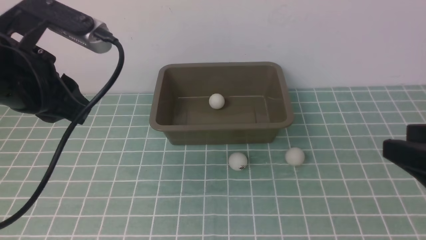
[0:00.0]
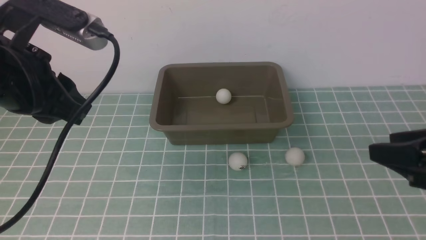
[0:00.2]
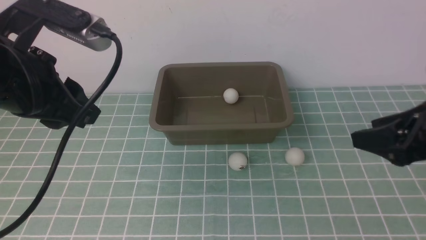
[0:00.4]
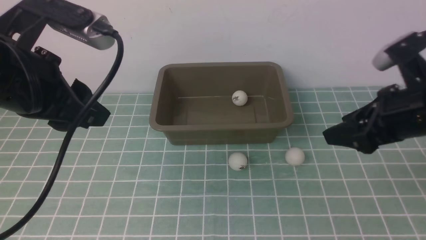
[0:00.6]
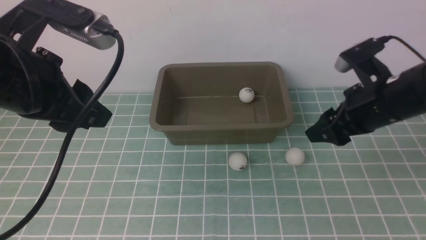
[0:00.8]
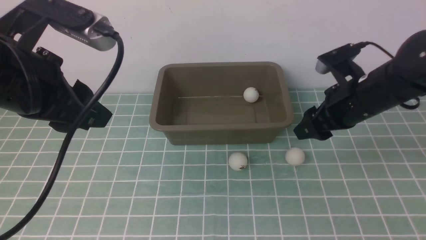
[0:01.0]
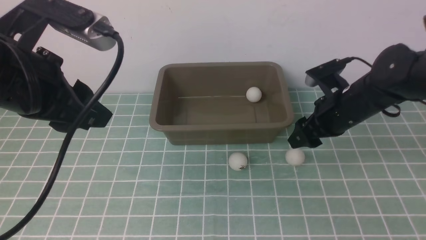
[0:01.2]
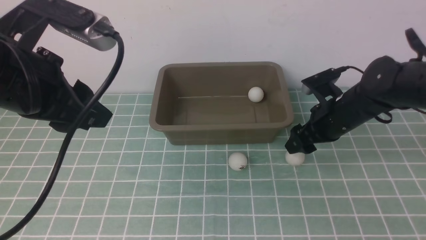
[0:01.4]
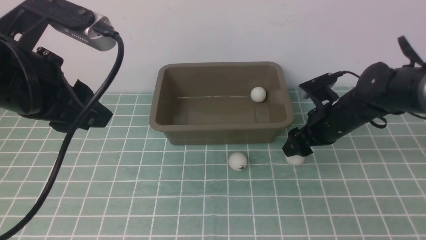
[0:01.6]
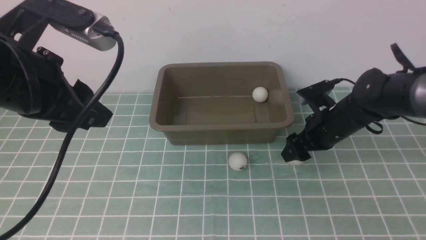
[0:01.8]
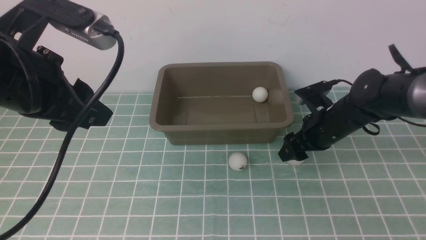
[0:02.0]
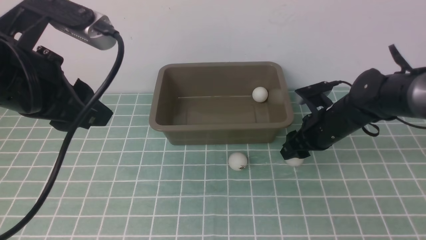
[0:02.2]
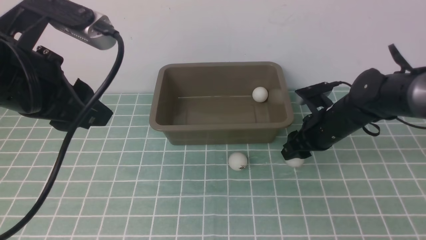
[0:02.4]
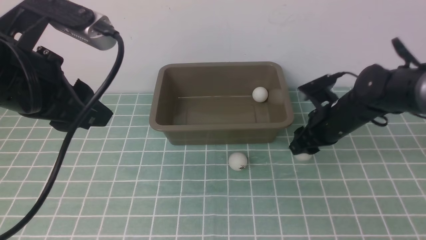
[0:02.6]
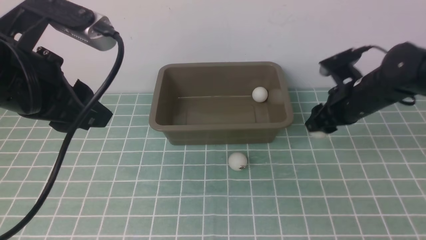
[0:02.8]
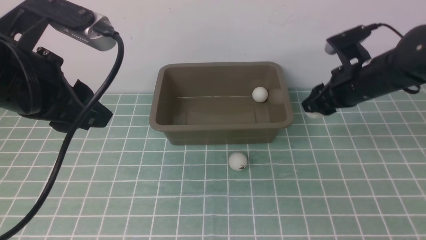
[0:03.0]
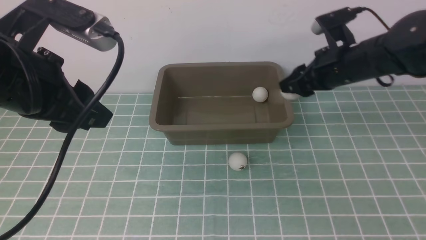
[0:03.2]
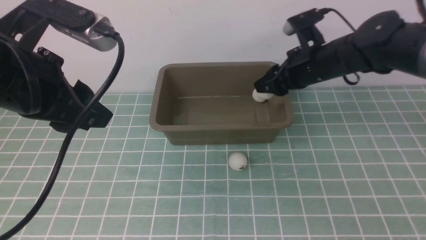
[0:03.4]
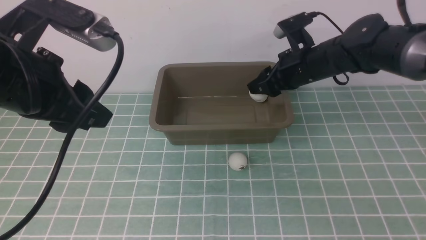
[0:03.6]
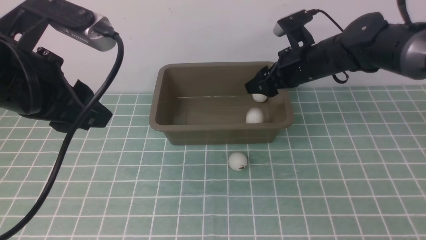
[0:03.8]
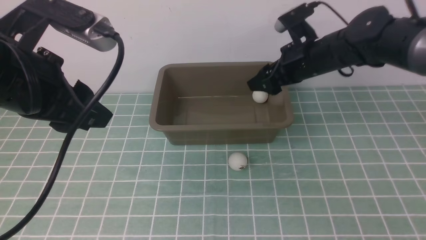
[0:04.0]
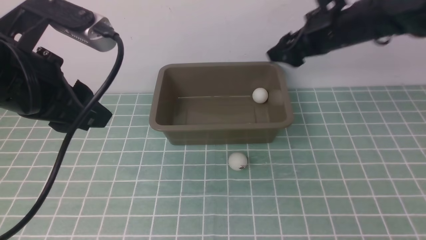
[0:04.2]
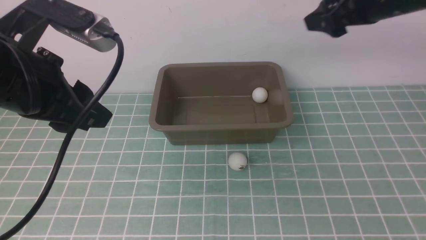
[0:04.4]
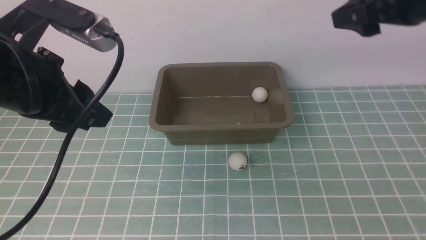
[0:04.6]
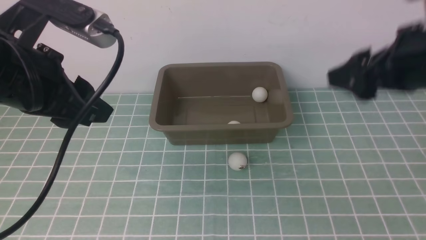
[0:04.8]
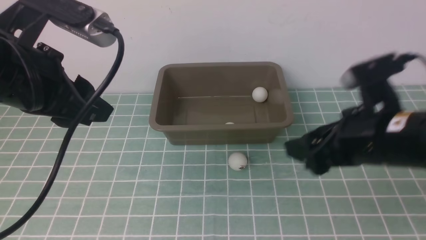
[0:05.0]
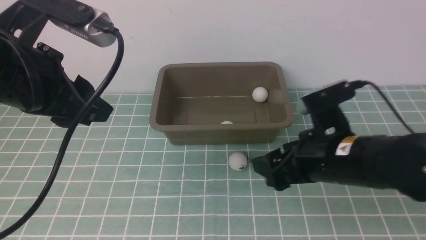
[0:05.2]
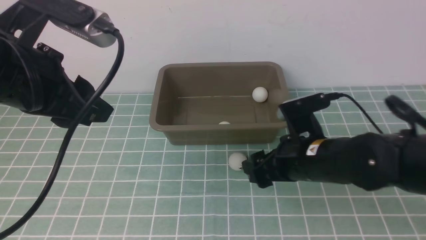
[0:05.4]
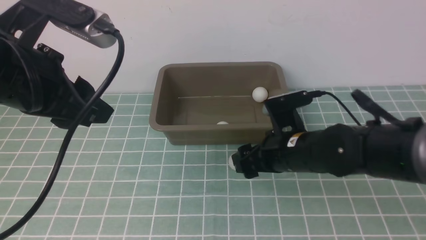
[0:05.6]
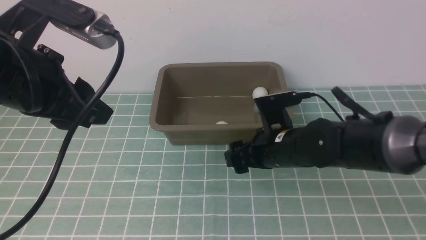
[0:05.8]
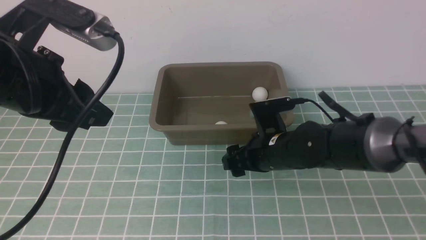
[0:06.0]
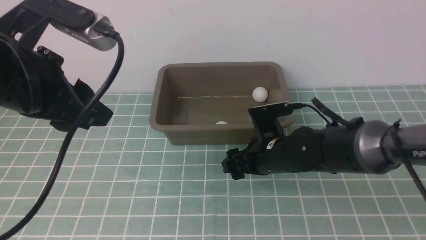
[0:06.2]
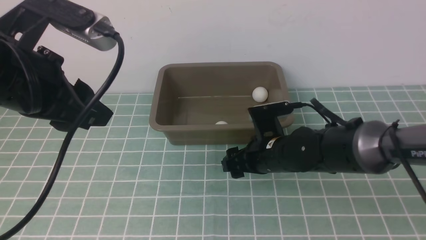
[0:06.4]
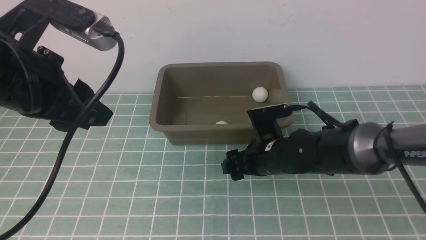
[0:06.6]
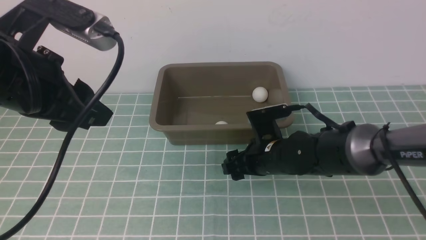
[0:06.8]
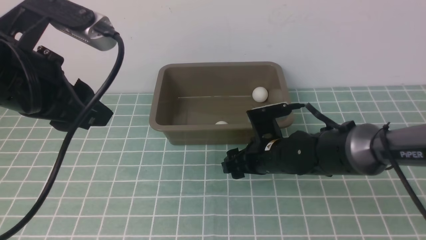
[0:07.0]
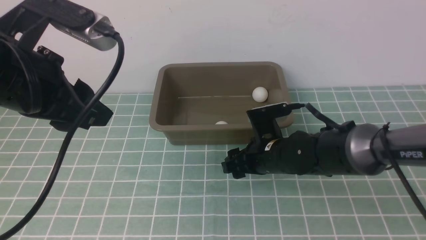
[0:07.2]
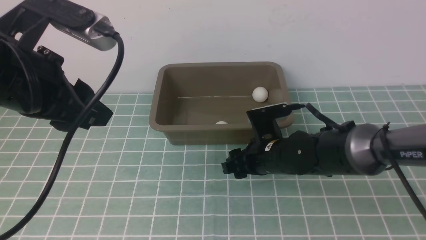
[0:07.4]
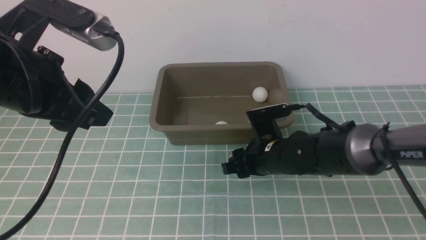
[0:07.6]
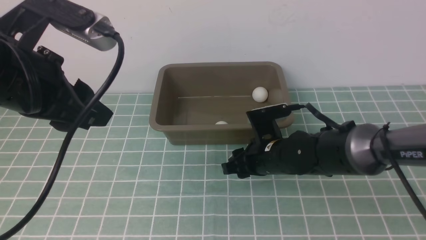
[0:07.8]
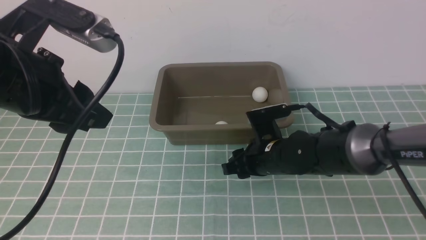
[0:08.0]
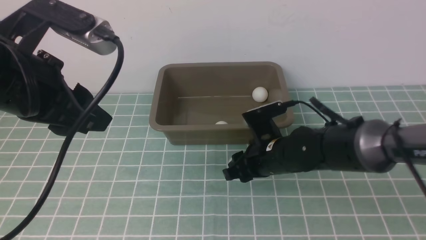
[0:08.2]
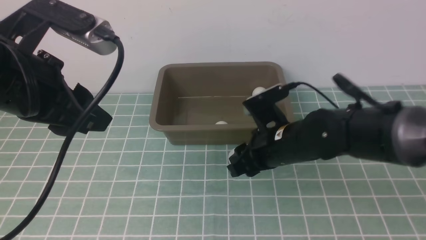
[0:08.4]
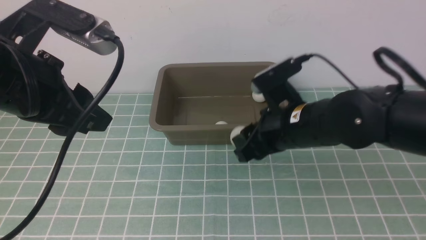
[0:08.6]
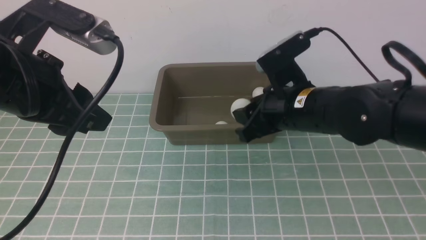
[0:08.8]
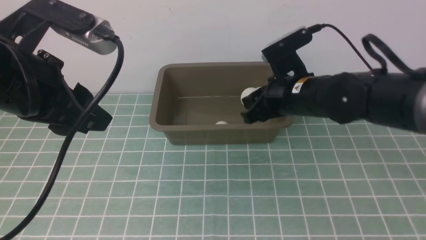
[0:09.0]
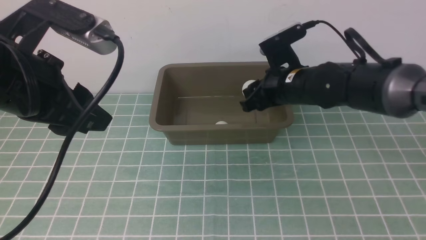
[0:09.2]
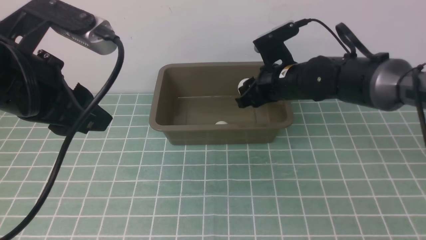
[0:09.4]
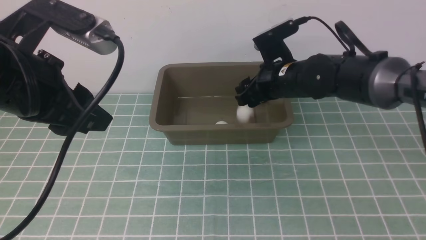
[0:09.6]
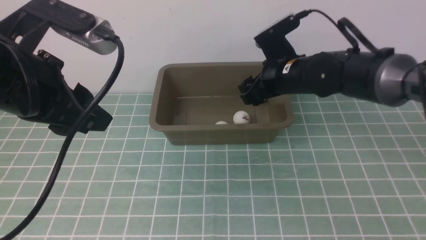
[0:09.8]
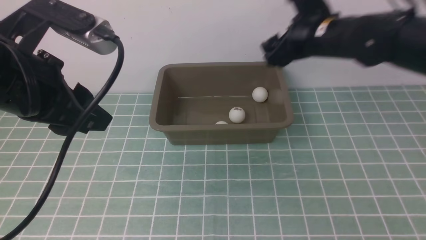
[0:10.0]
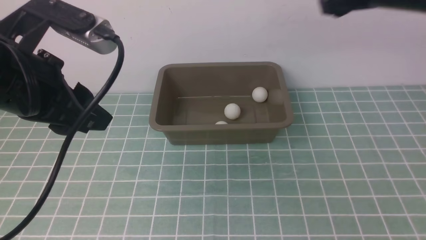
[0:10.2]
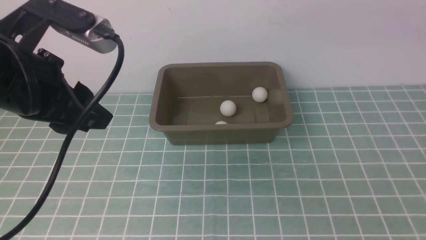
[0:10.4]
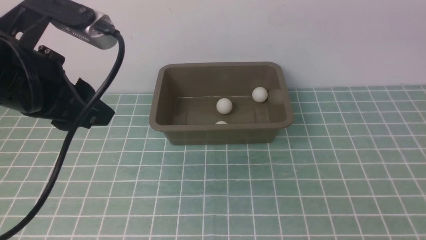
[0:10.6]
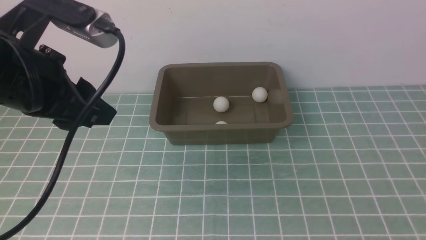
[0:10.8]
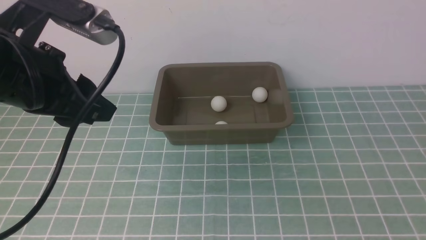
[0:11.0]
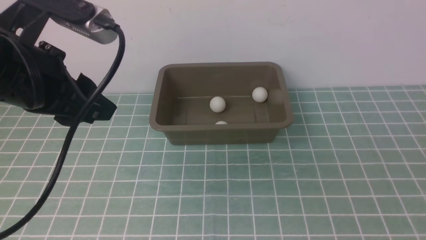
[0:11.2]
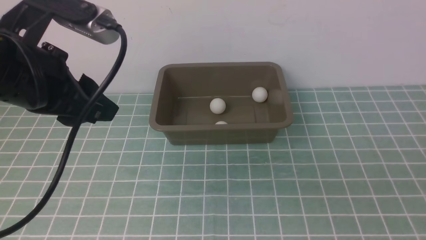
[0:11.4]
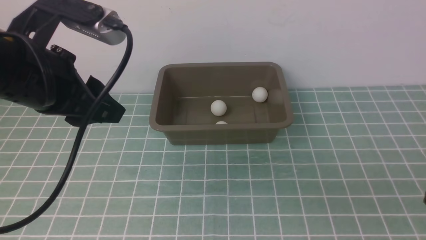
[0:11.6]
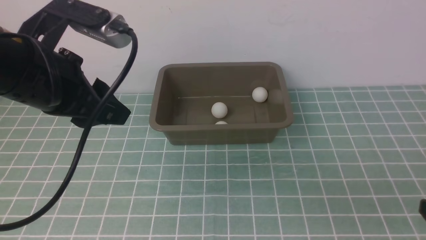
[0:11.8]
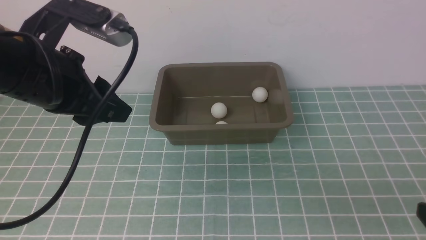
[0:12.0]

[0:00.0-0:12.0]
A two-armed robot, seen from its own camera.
Step, 0:00.0 to 0:02.8: use the right arm to clamp the table tennis ball closest to it.
Step, 0:03.0 to 0:04.0: use the right arm to put the table tennis ball into the box.
Step, 0:04.2 to 0:08.2: use the right arm to clamp the table tennis ball closest to it.
Step, 0:08.4 to 0:09.8: use the right arm to put the table tennis ball into the box.
0:00.0 to 0:01.6: The left gripper opens; the right gripper travels forward and downward by approximately 25 cm, and opens.
0:01.6 to 0:03.0: The right gripper heads upward, covering about 10 cm, and closes its fingers.
0:03.0 to 0:04.4: The right gripper goes some 15 cm upward, and opens.
0:04.4 to 0:06.0: The right gripper is displaced downward and to the left by some 25 cm.
0:06.0 to 0:07.6: The right gripper closes up.
0:07.6 to 0:09.0: The right gripper shifts about 10 cm upward.
0:09.0 to 0:10.4: The right gripper goes about 25 cm upward and to the right, and opens up.

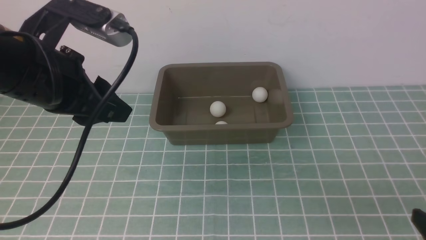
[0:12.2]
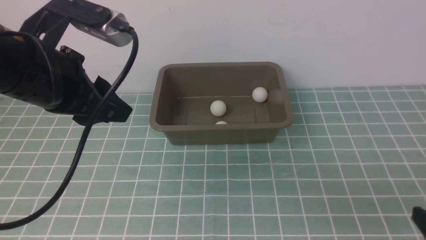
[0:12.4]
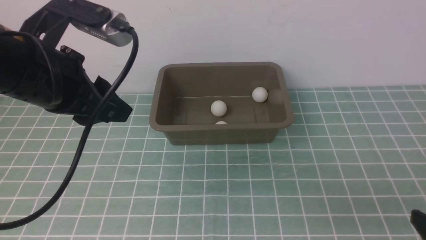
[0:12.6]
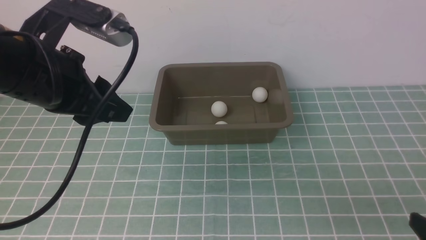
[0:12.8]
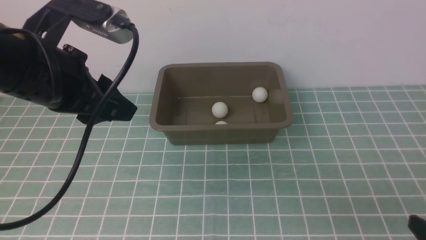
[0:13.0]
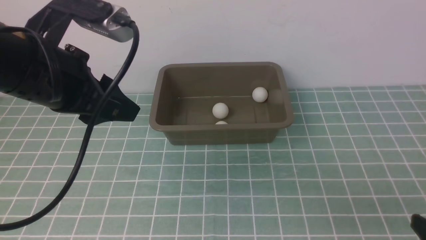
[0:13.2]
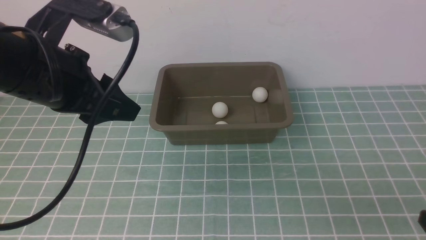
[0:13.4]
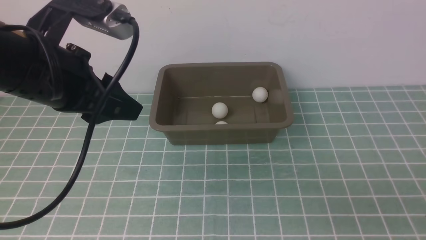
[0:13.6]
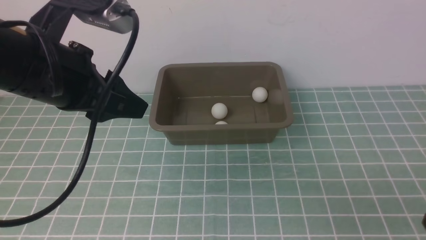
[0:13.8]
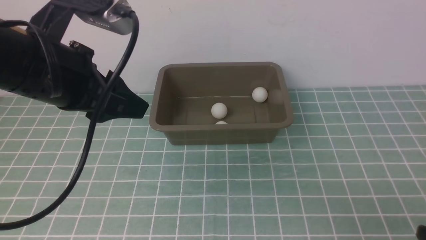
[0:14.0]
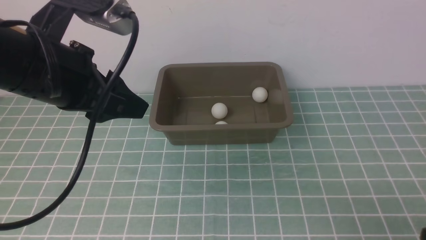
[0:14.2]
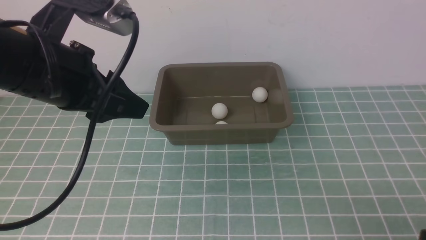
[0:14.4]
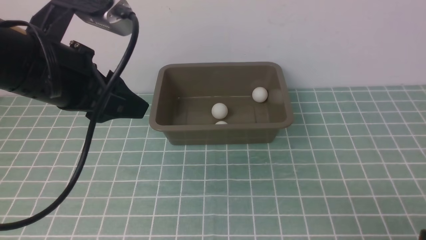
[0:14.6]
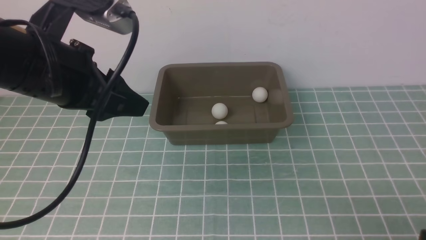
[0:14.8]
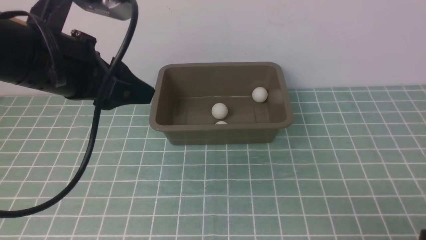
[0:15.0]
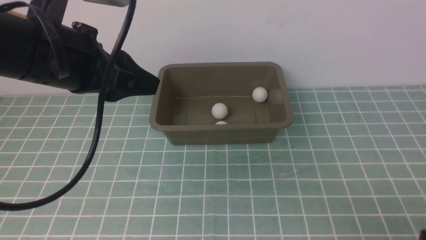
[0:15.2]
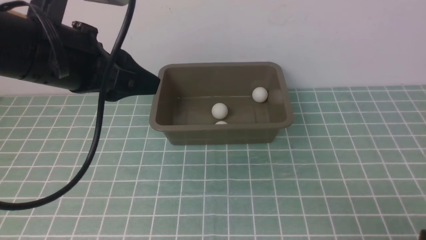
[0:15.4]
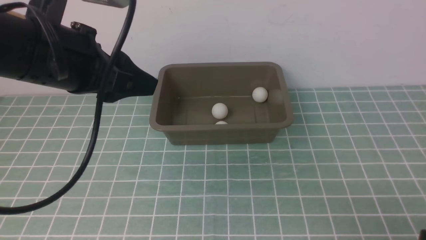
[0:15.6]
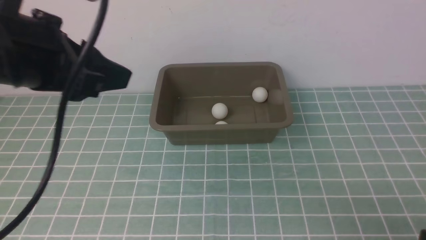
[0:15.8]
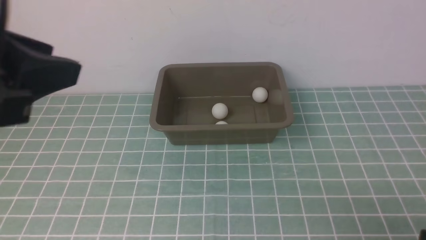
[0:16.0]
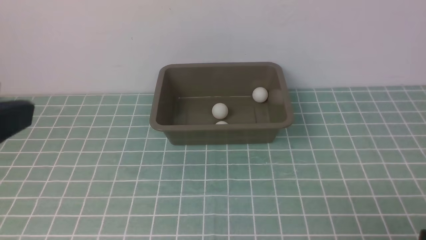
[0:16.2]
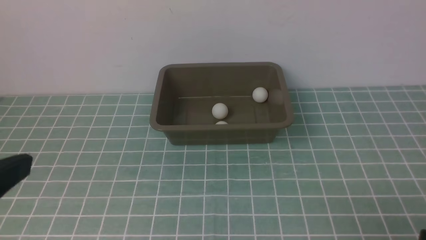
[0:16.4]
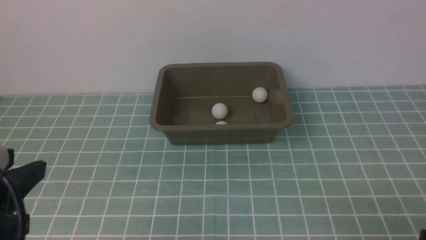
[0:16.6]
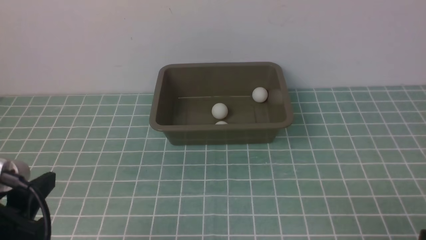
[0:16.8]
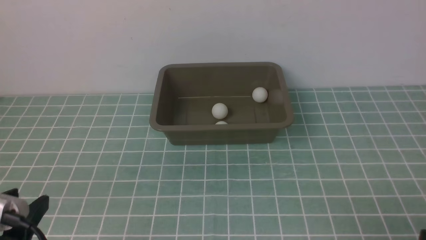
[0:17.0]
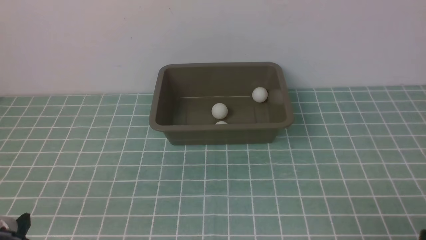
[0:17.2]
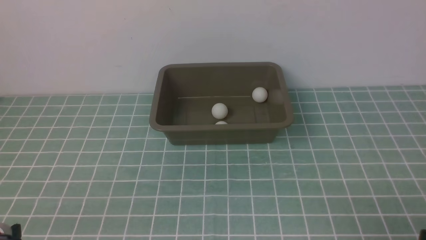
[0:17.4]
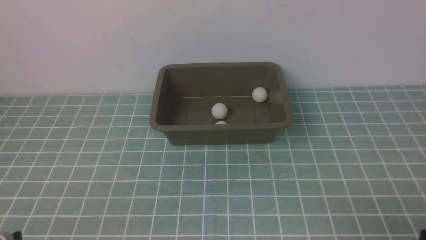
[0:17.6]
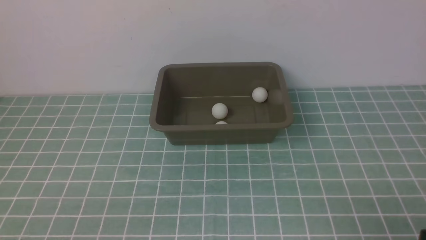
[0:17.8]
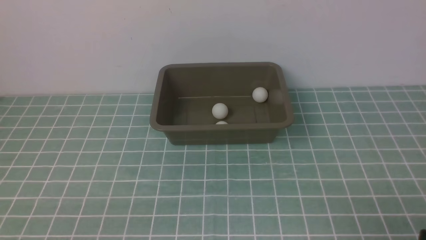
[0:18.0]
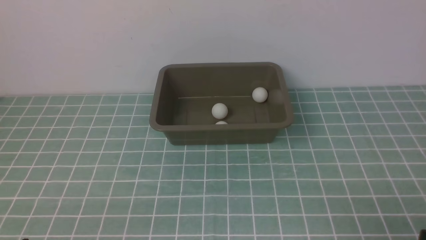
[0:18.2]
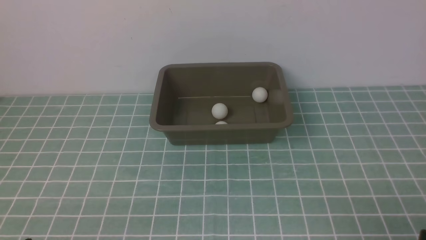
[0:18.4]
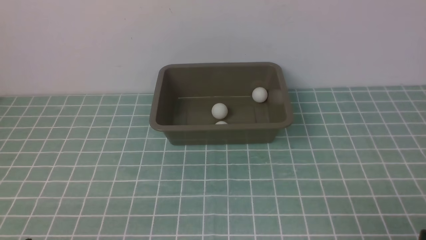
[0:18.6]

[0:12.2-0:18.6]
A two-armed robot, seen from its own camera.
0:12.2 to 0:15.4: The grippers move only a little.
0:15.4 to 0:17.0: The left gripper travels backward, downward and to the left by approximately 20 cm.
0:17.0 to 0:18.6: The left gripper goes roughly 10 cm downward.
